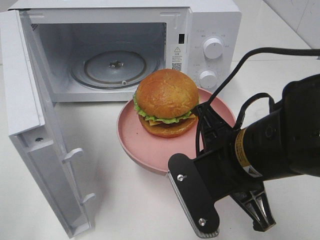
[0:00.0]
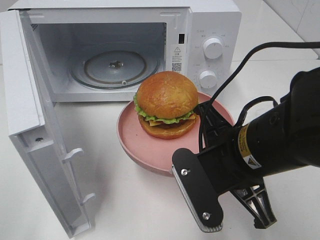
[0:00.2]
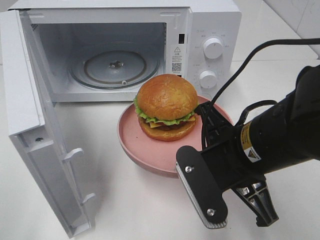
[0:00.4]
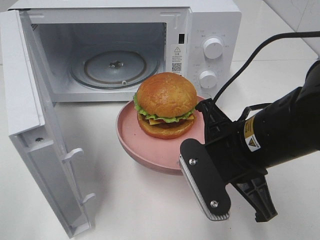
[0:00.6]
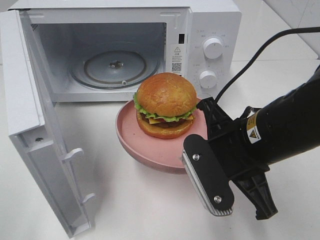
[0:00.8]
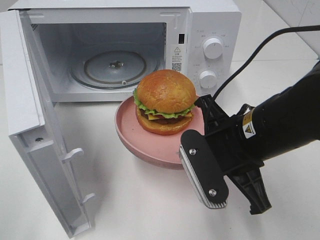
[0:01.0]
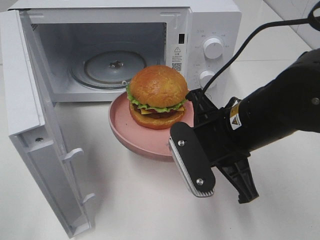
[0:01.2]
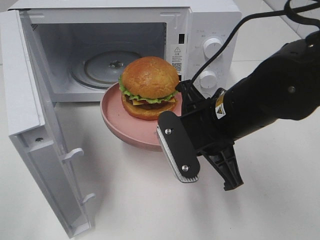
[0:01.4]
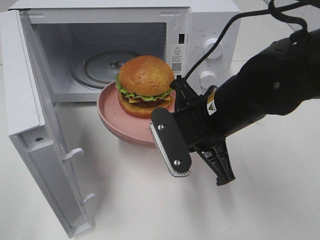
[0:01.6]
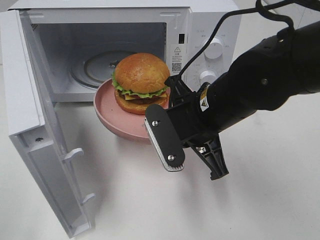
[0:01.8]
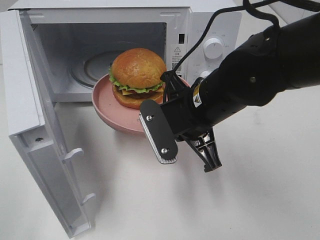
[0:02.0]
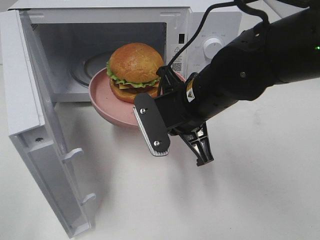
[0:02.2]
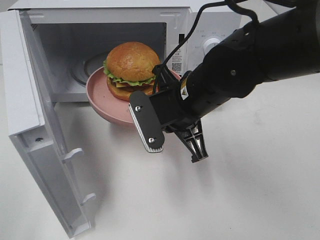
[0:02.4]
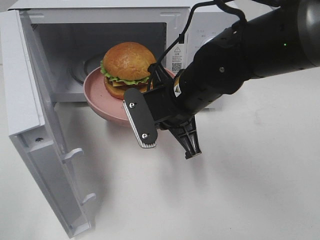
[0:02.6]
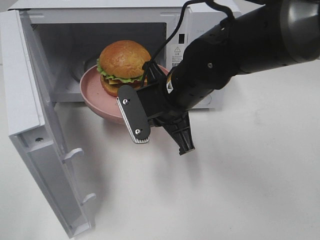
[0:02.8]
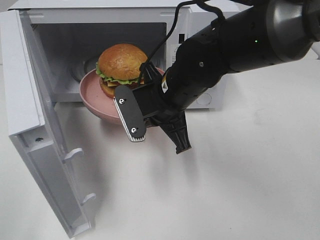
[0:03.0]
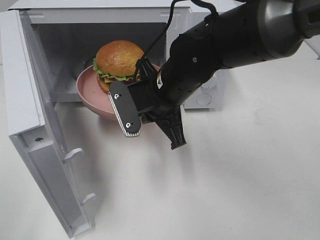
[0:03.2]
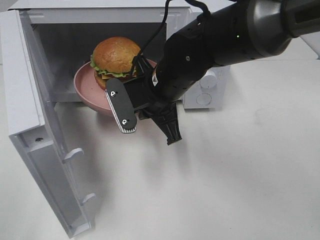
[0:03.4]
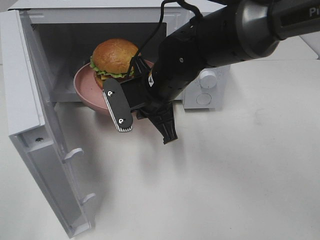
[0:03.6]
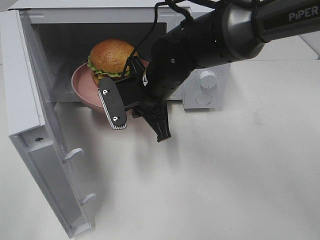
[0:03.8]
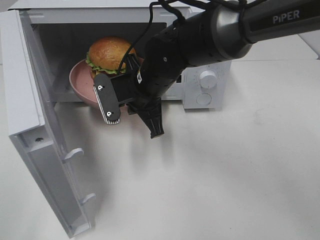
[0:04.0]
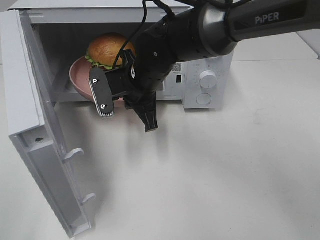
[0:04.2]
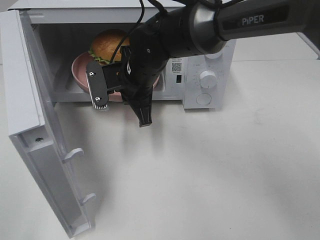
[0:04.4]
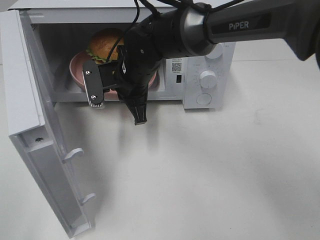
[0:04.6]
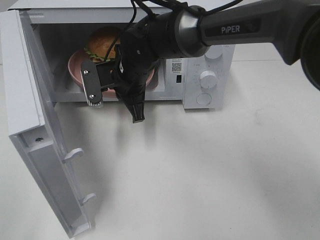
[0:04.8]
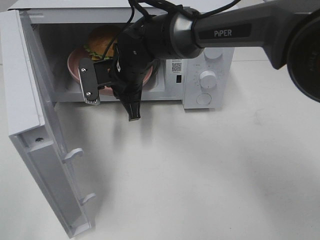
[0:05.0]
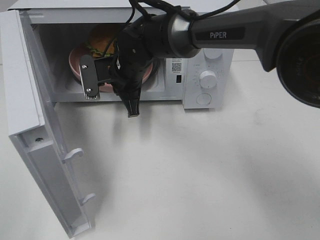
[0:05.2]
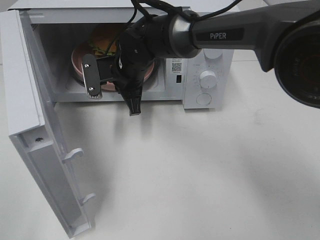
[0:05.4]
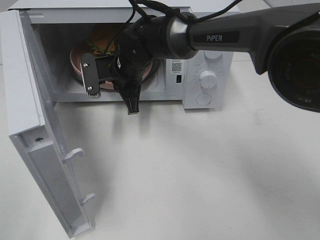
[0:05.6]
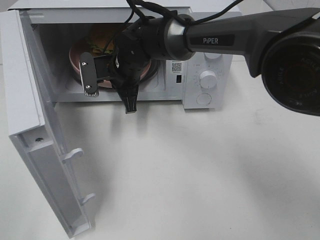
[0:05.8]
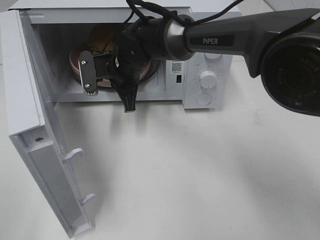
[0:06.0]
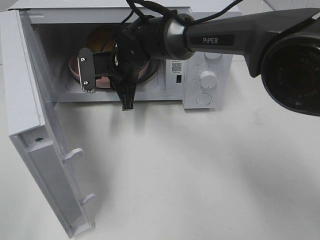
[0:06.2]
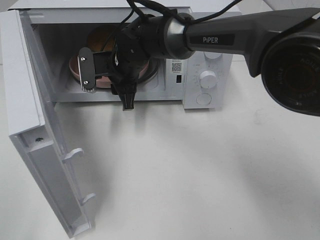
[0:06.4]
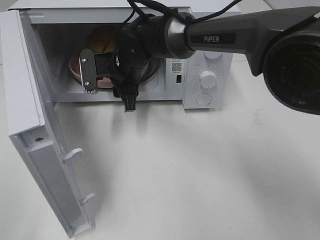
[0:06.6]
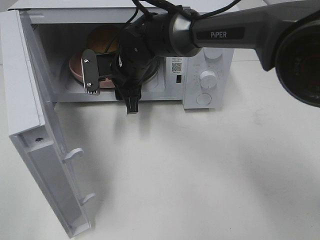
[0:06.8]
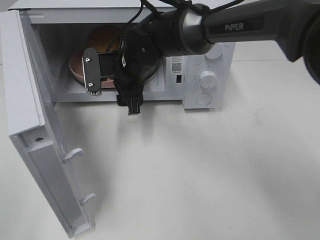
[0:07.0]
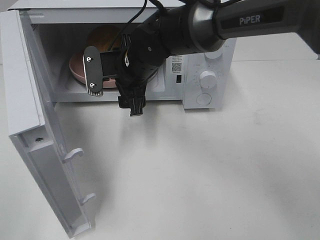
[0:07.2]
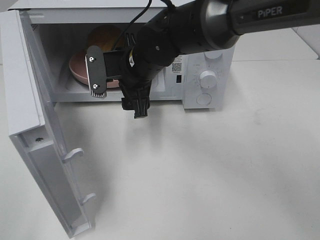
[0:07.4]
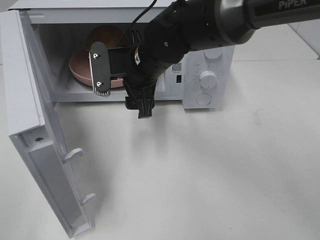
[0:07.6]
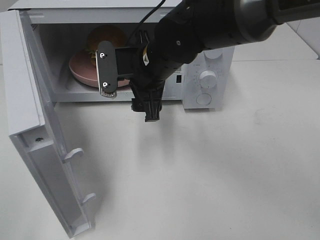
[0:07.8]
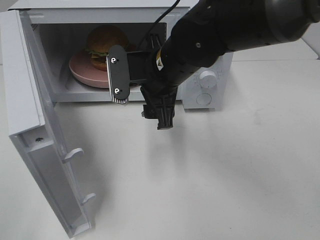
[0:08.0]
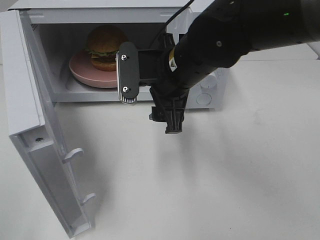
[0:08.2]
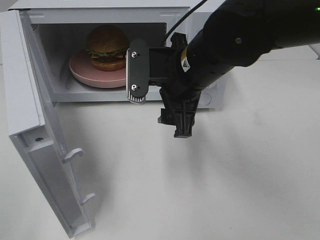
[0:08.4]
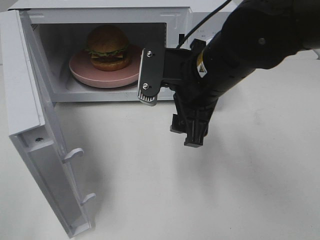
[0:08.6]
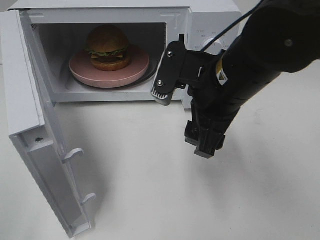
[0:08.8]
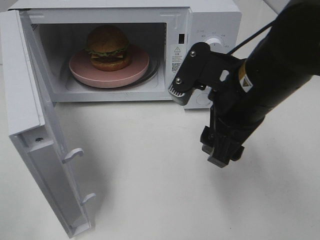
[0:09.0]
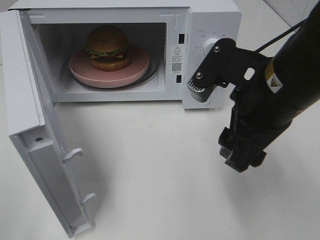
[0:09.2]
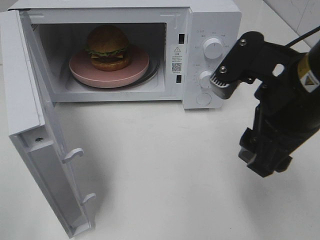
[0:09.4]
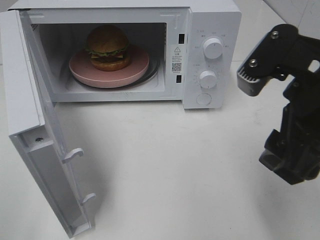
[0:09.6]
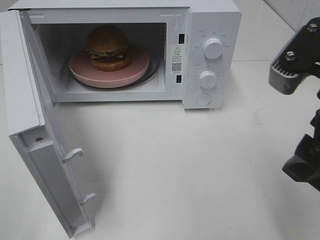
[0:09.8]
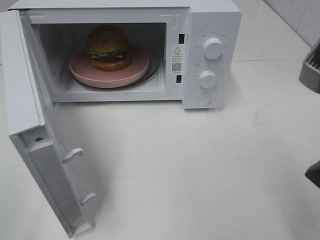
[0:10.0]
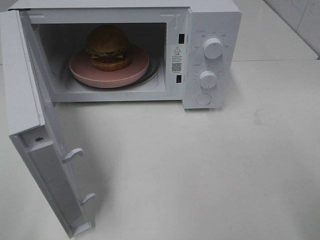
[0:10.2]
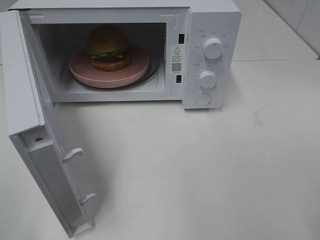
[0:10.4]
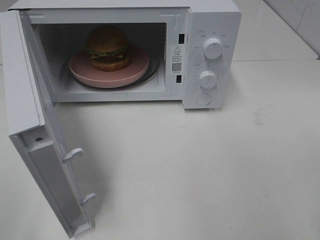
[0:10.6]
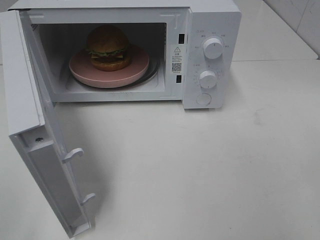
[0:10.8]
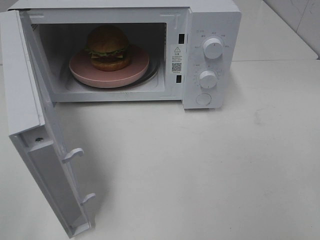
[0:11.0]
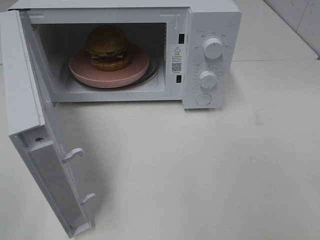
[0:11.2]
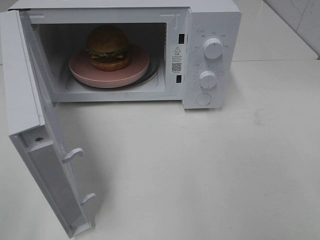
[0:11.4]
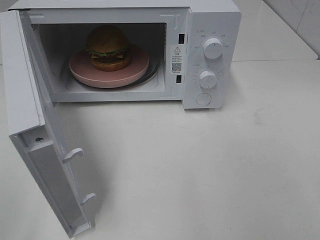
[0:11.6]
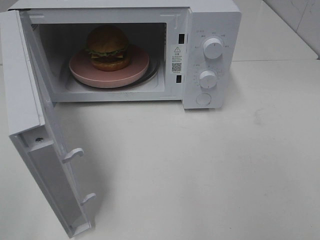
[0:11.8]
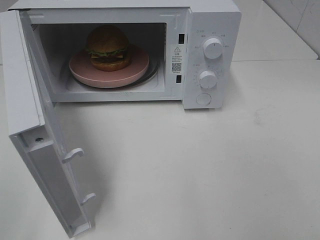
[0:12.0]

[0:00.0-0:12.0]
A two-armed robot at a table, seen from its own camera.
Task of the whole recording: Heat the burger.
Step, 0:00.0 to 0:06.2: Right hand: place the plate in the microwave.
0:00.0 to 0:01.6: The right gripper heads forward, covering about 5 cm.
0:01.6 to 0:03.0: The right gripper moves forward and to the left, about 10 cm.
0:03.0 to 0:04.4: The right gripper is displaced forward and to the left by approximately 10 cm.
0:04.4 to 0:06.0: The right gripper travels forward by approximately 5 cm.
0:06.0 to 0:07.6: The right gripper shifts approximately 5 cm backward, and opens its fingers.
0:07.6 to 0:09.0: The right gripper shifts approximately 20 cm backward and to the right.
0:09.0 to 0:10.4: The right gripper heads backward, to the right and upward, covering roughly 20 cm.

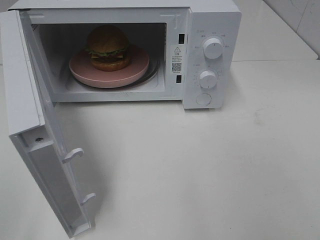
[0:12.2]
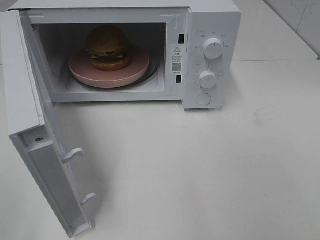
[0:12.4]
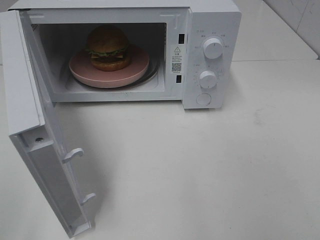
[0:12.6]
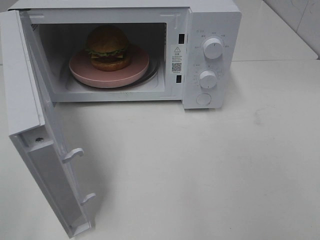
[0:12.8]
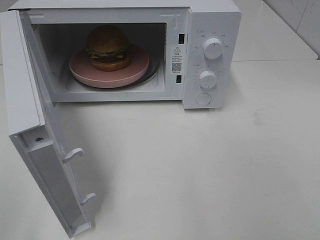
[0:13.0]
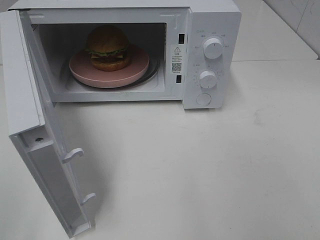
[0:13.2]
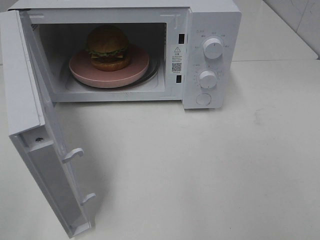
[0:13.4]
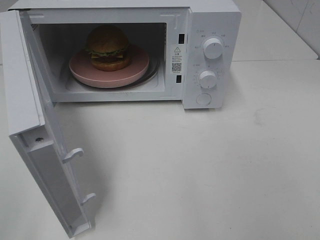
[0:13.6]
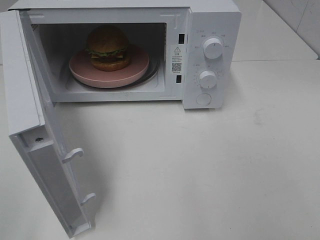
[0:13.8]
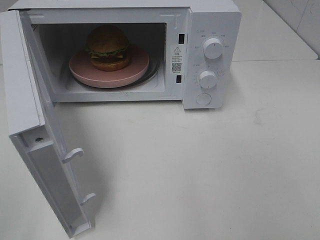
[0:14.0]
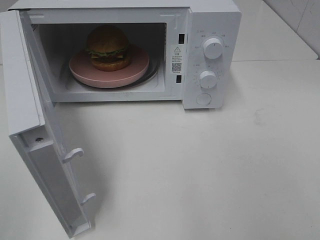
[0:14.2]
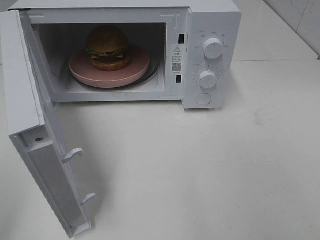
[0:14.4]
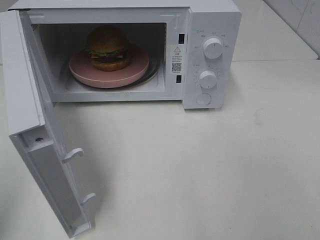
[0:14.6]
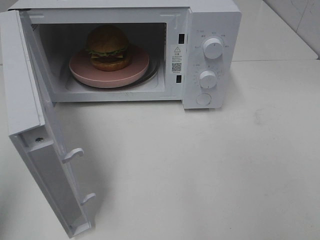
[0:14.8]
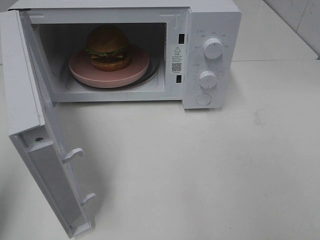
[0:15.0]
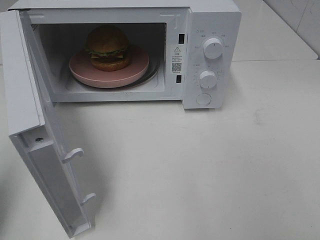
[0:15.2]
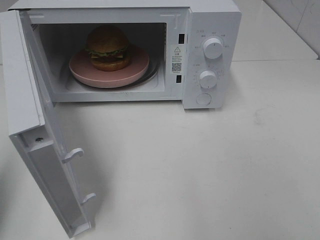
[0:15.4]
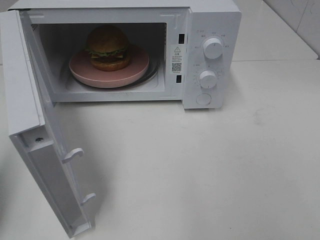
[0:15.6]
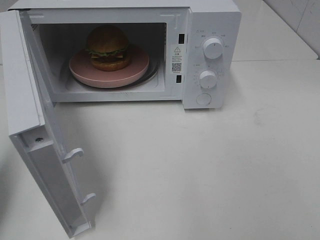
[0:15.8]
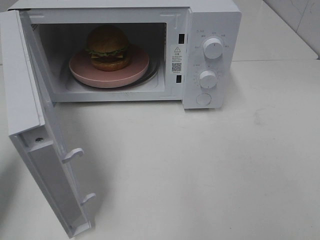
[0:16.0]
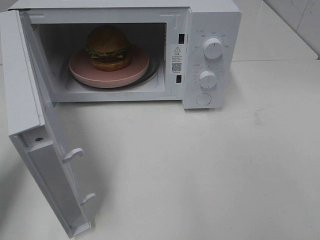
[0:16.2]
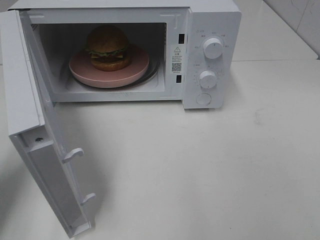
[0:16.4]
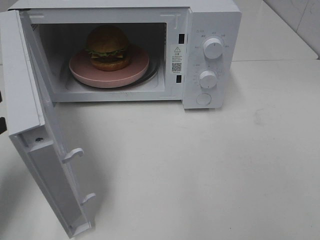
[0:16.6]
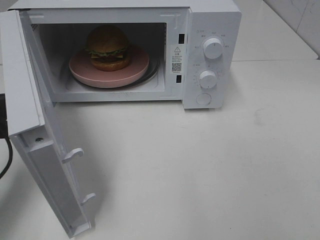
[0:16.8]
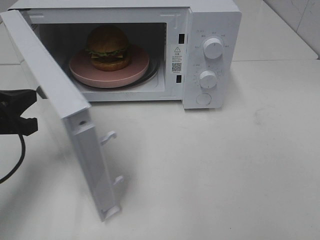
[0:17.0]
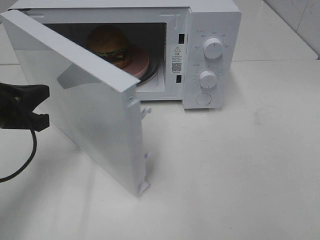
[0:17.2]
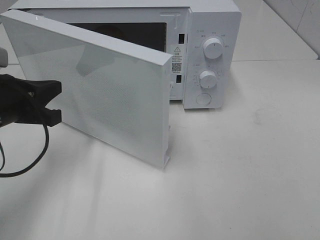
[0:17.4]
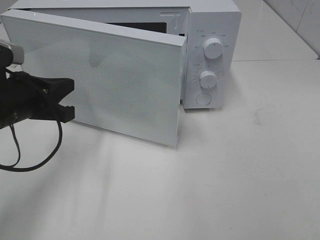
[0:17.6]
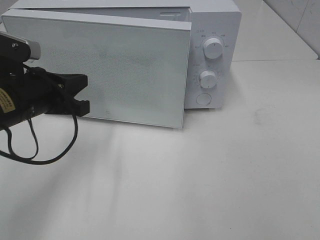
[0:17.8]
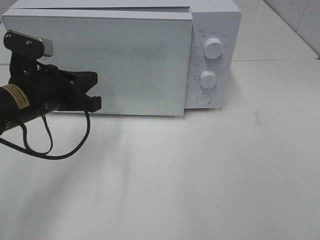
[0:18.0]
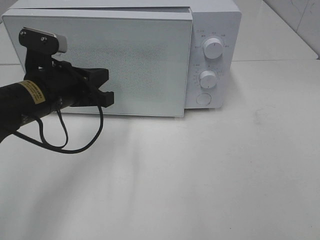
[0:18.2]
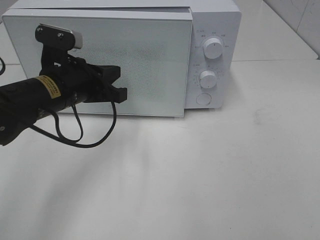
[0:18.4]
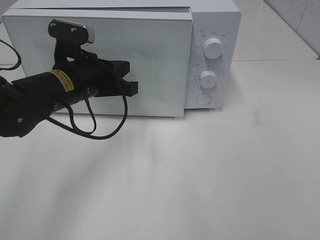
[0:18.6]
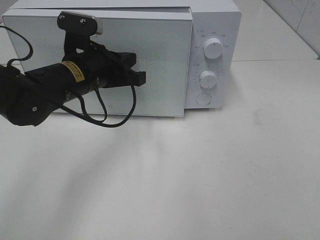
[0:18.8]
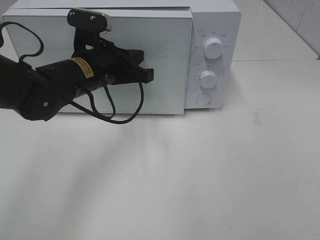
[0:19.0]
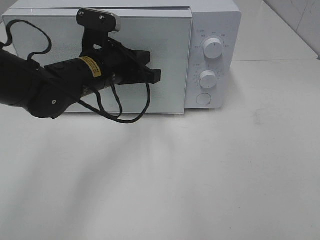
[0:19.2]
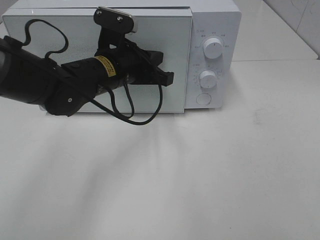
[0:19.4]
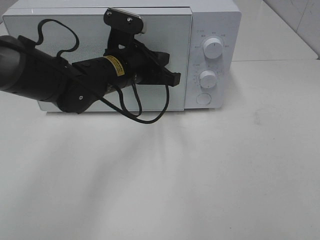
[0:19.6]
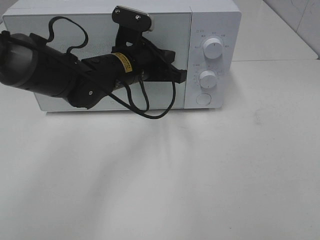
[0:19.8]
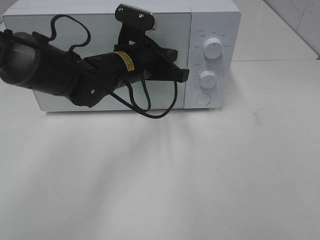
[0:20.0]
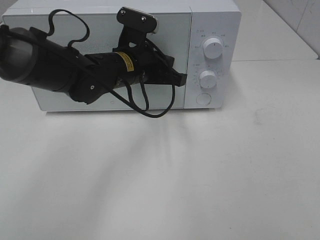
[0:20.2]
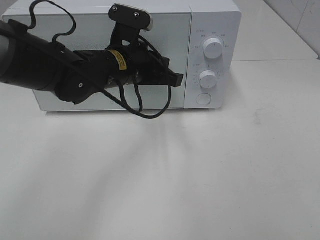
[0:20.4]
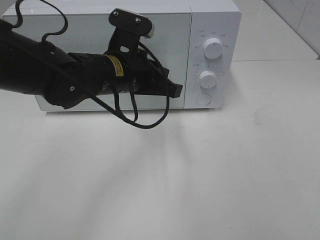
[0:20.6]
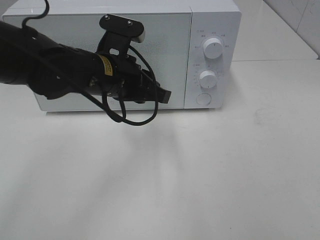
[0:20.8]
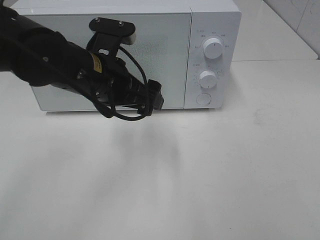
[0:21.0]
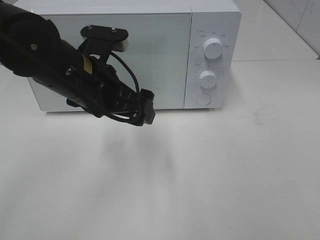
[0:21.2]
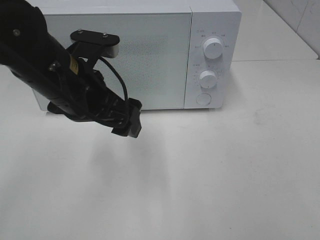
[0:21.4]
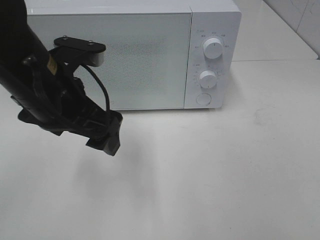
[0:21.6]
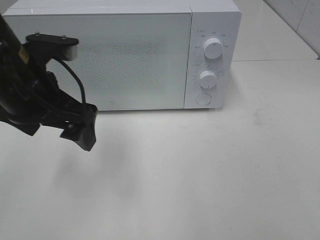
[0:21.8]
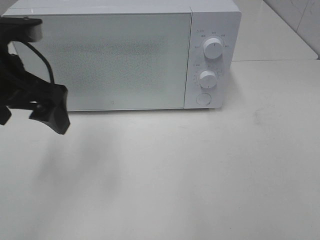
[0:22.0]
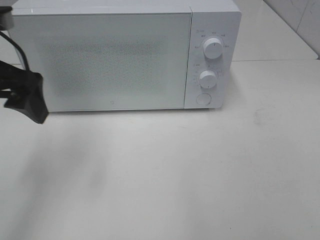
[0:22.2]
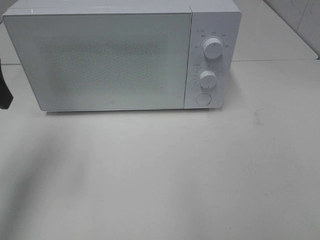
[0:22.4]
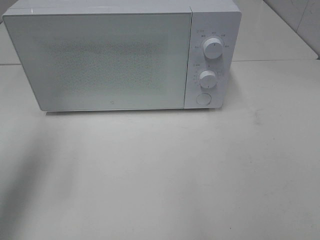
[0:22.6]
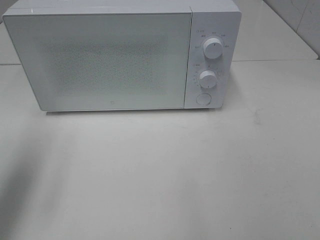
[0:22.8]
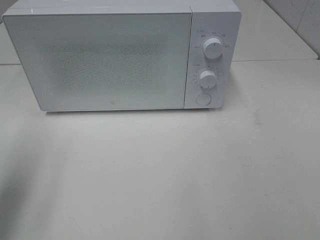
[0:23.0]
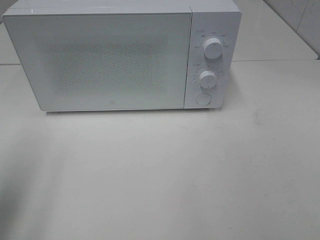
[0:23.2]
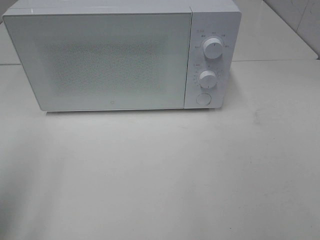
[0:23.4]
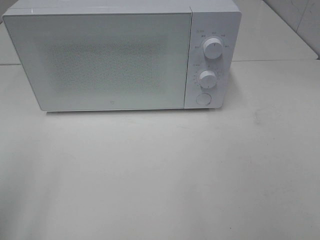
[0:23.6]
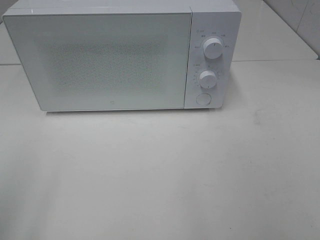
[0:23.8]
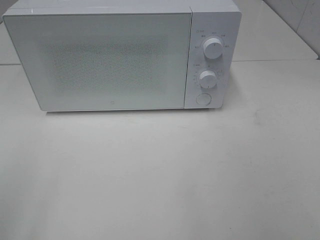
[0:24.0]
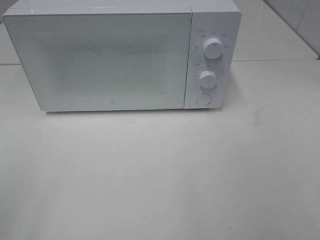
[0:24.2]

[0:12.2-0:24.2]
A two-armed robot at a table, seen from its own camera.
Task of the whole recording: Heat the burger.
Step, 0:12.2 to 0:20.2: Left hand: close the microwave door.
0:12.2 to 0:13.8: Both grippers stay about where they are.
0:13.8 to 0:15.2: The left gripper goes about 10 cm forward, and closes.
0:15.2 to 0:16.6: The left gripper travels downward and forward by some 15 cm.
0:16.6 to 0:18.2: The left gripper goes some 15 cm to the right and forward.
0:18.2 to 0:19.8: The left gripper is displaced to the right and forward by some 15 cm.
0:19.8 to 0:21.2: The left gripper moves backward, some 10 cm, and opens its fingers.
0:21.2 to 0:22.6: The left gripper is displaced to the left and upward by some 20 cm.
0:22.6 to 0:24.2: The left gripper heads backward, covering about 20 cm.
